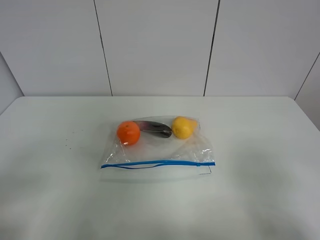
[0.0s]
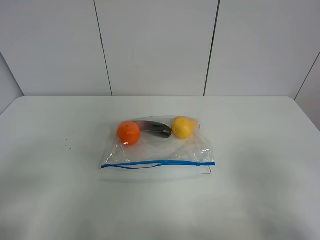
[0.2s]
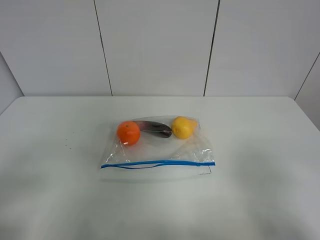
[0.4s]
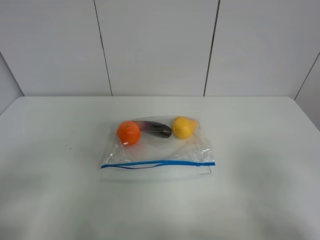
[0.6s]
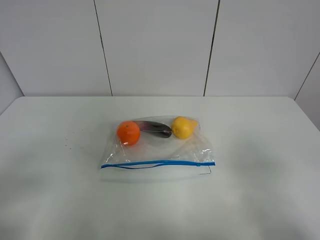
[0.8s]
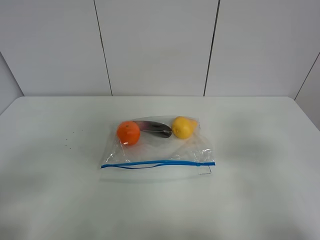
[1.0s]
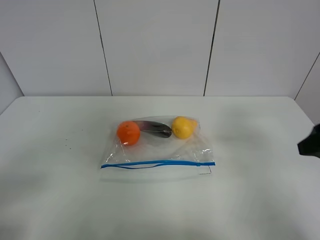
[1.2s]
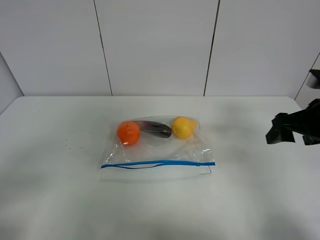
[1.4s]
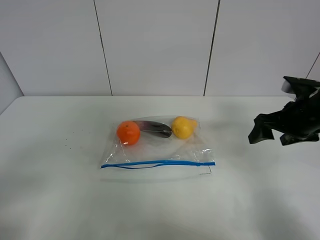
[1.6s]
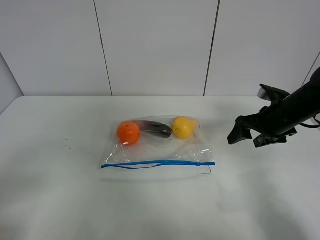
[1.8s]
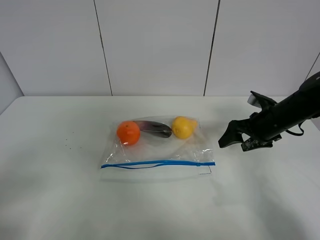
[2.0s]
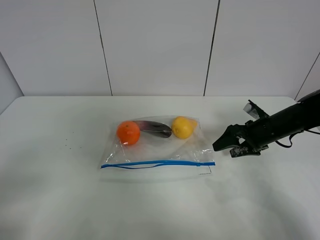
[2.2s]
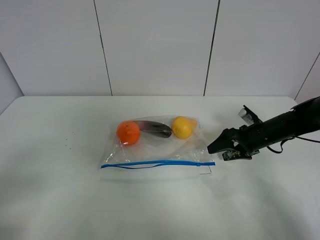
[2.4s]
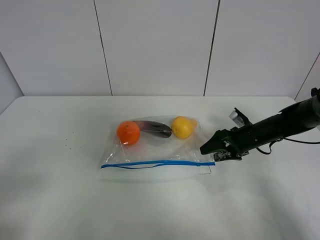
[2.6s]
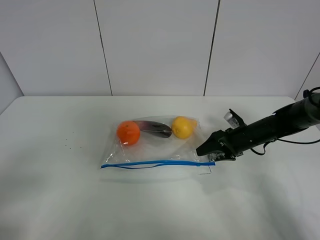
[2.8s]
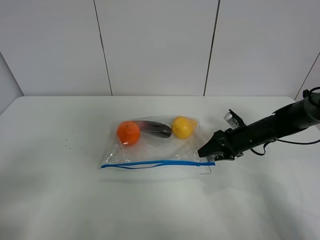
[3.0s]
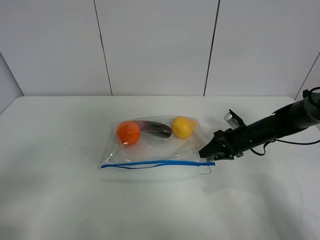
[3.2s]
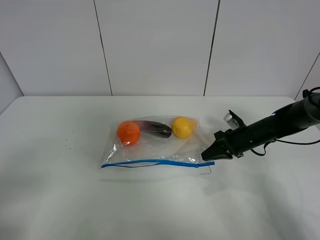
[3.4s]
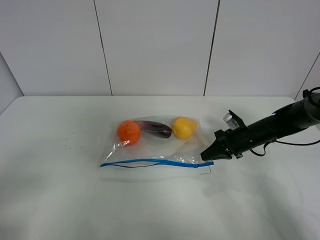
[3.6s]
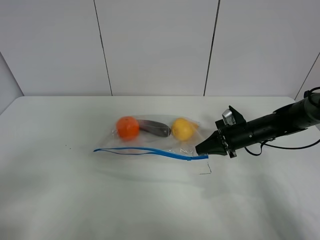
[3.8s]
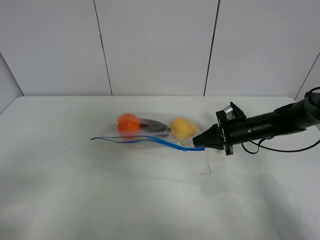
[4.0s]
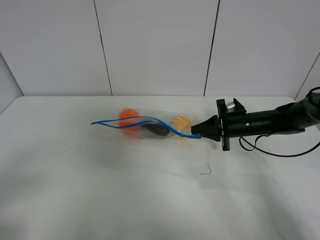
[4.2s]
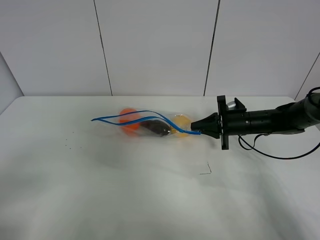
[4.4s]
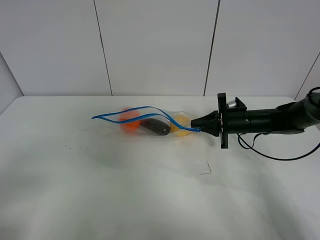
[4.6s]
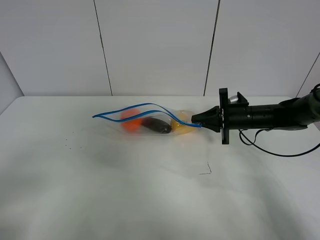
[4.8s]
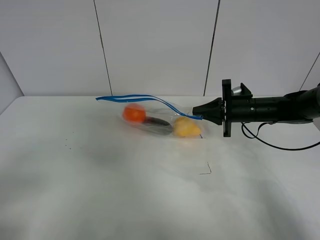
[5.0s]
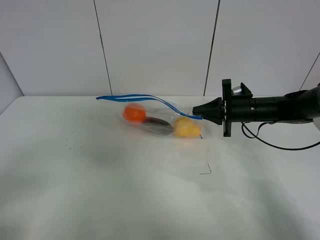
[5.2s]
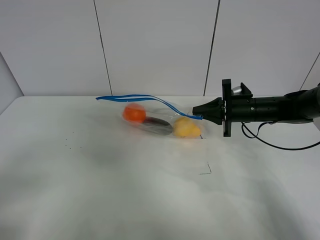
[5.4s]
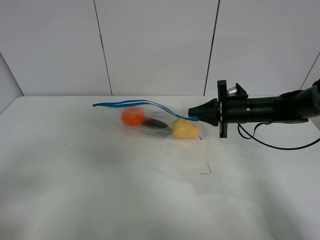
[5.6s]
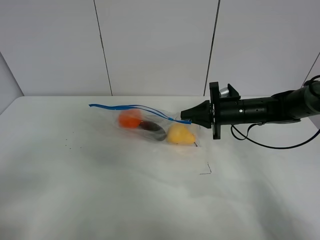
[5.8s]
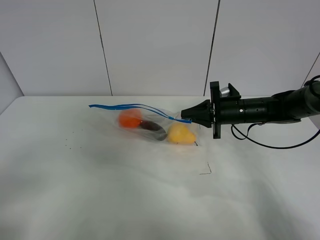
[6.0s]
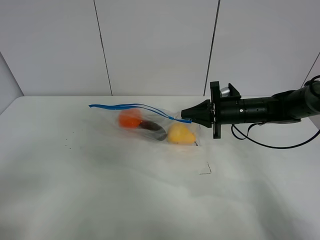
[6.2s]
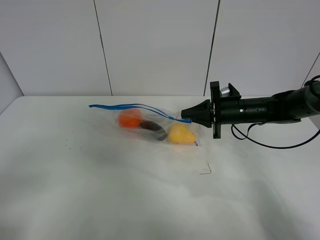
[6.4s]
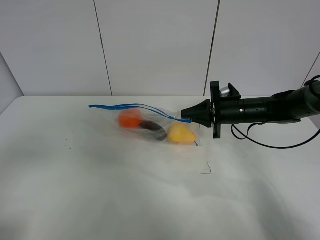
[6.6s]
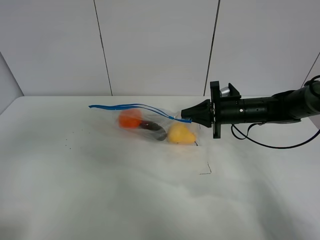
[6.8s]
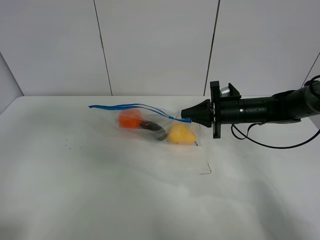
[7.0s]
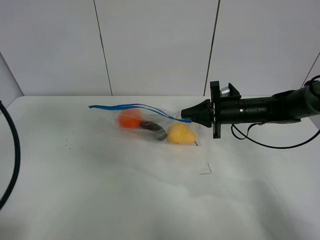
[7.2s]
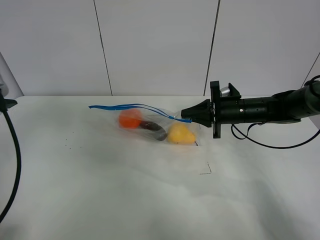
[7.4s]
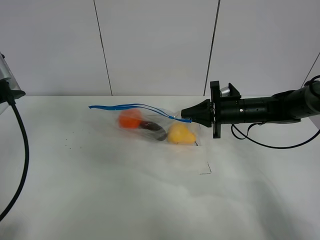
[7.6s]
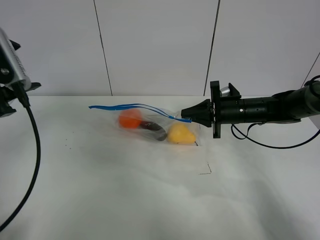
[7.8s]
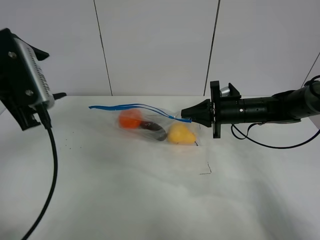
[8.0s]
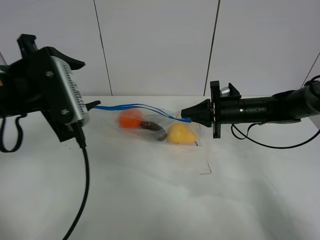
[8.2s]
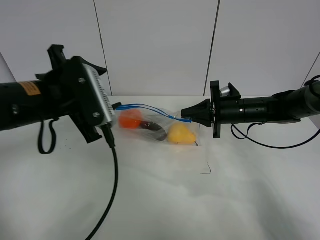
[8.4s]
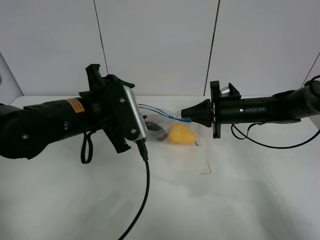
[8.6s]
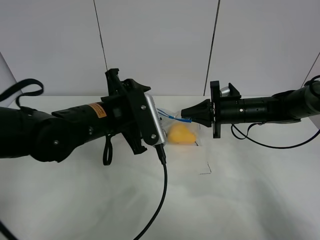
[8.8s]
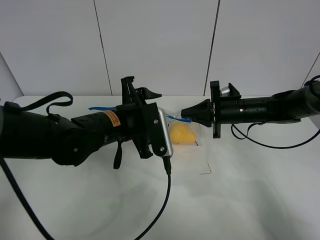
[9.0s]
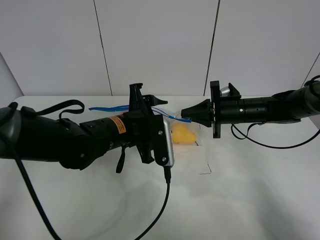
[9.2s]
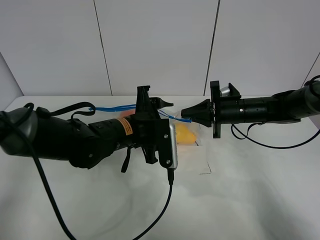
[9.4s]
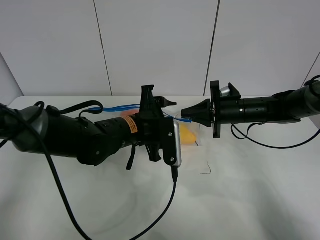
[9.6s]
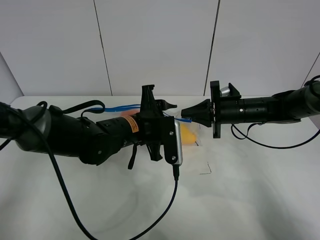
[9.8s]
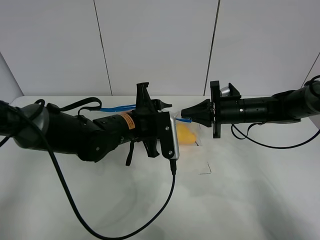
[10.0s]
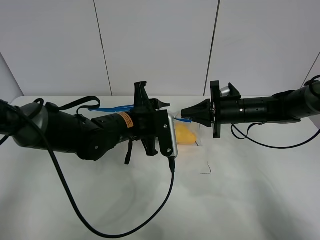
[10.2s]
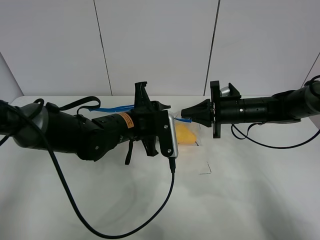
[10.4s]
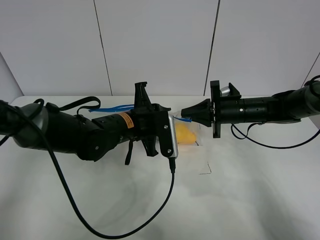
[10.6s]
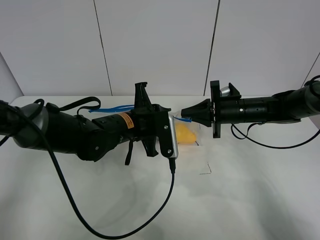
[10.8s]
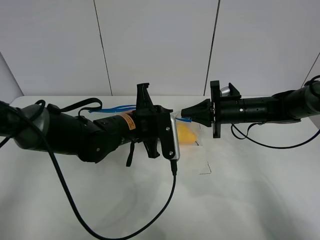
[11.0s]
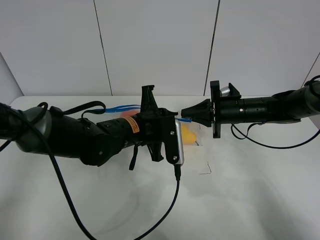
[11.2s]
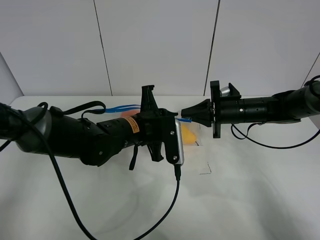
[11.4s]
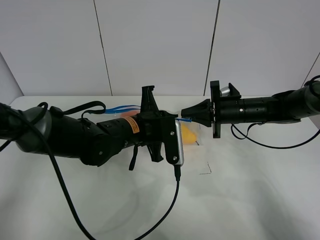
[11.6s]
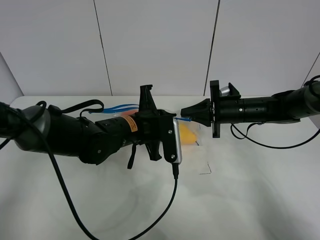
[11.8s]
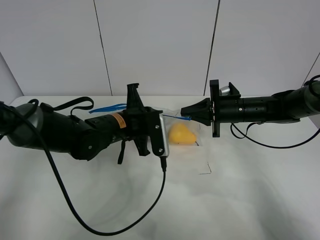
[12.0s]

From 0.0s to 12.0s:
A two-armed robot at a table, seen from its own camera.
Step, from 0.0s to 3.4s: Grasp the fruit bag with right gripper.
Step, from 3.6s to 5.2s: Lift the fruit bag with your right gripper.
From 0.0s to 1.6s: The right gripper is displaced forward by about 30 cm.
From 1.6s to 3.0s: The right gripper is displaced downward and forward by approximately 15 cm.
From 3.0s to 4.4s: The right gripper closes up.
From 4.4s to 6.0s: The right gripper shifts by about 5 cm.
From 6.0s to 7.6s: The left gripper travels forward by roughly 20 cm.
From 7.6s to 9.0s: The left gripper heads to the right and downward, covering some 25 cm.
From 9.0s to 10.4s: The left gripper closes up.
From 10.4s to 12.0s: The left gripper closes its fingers.

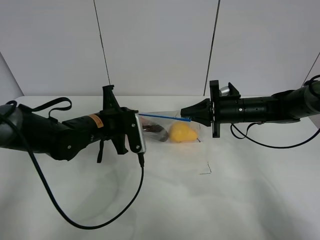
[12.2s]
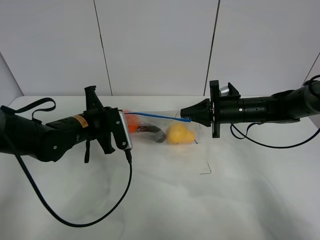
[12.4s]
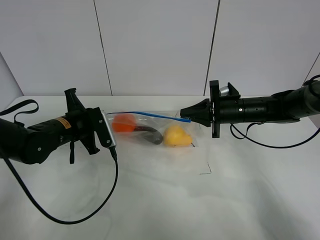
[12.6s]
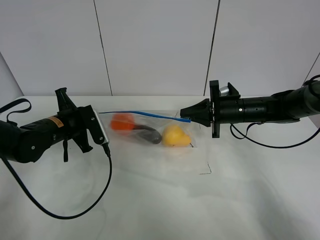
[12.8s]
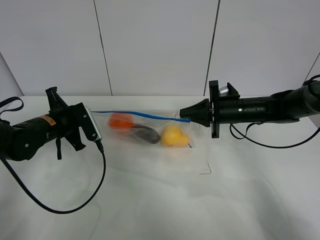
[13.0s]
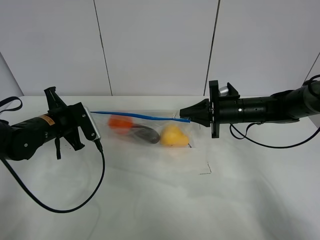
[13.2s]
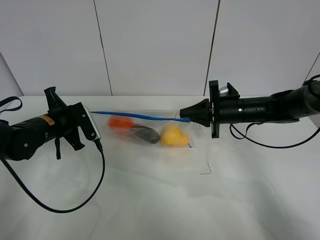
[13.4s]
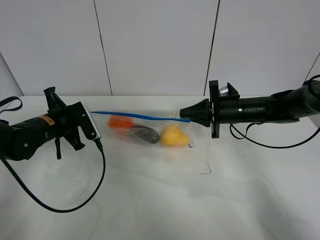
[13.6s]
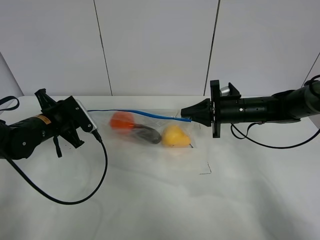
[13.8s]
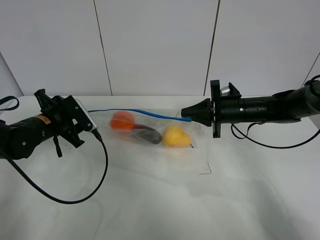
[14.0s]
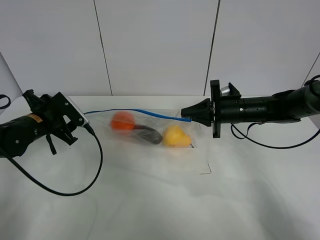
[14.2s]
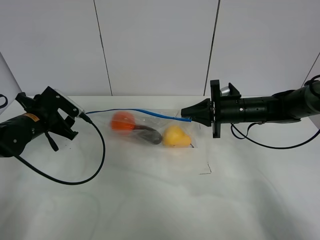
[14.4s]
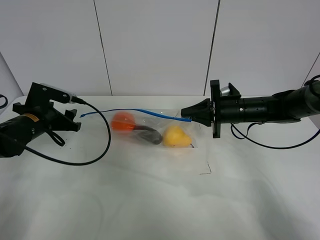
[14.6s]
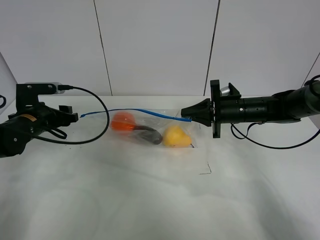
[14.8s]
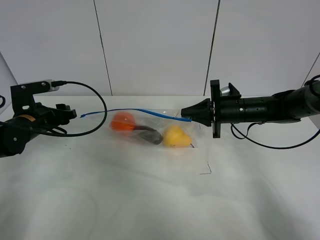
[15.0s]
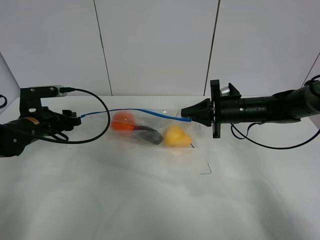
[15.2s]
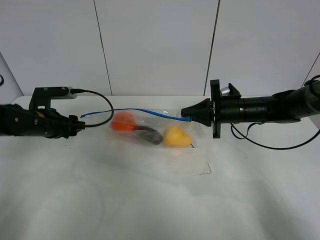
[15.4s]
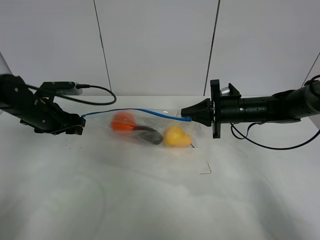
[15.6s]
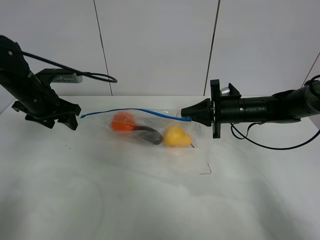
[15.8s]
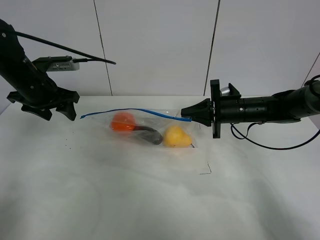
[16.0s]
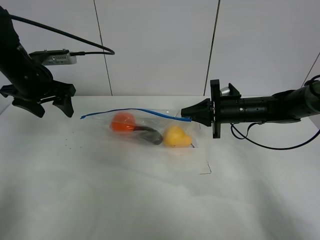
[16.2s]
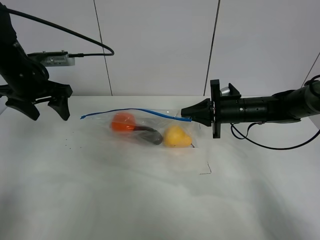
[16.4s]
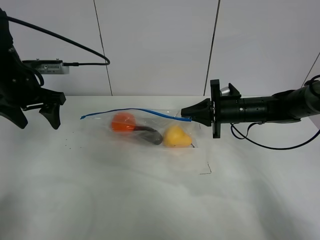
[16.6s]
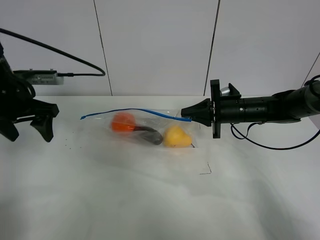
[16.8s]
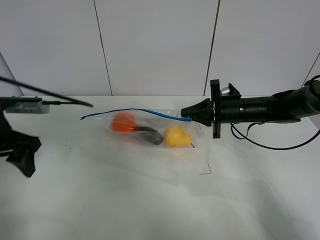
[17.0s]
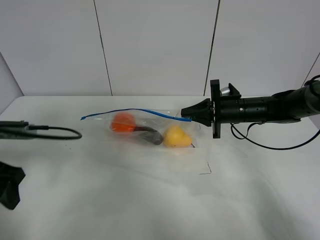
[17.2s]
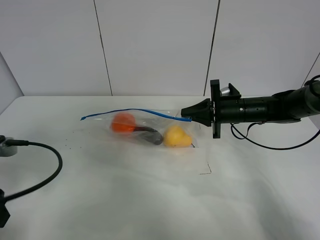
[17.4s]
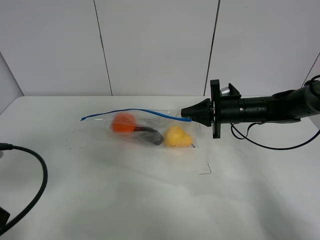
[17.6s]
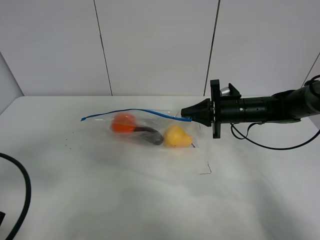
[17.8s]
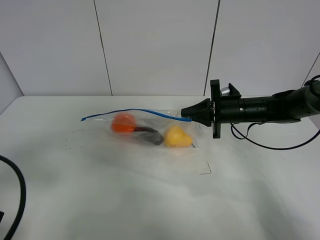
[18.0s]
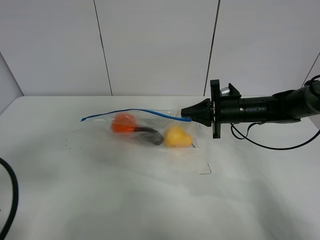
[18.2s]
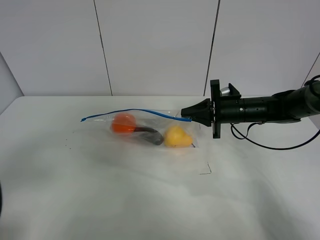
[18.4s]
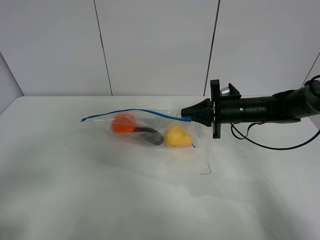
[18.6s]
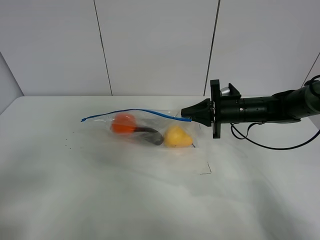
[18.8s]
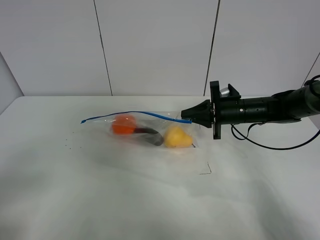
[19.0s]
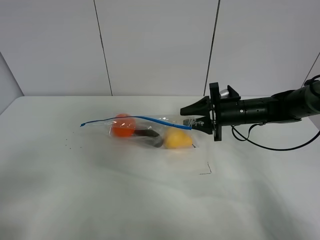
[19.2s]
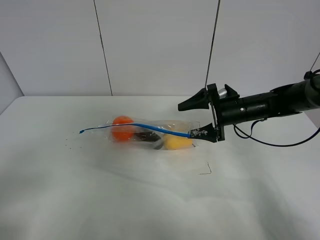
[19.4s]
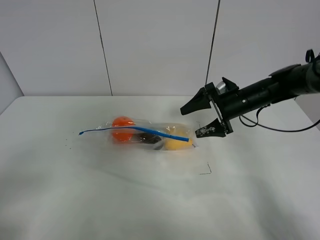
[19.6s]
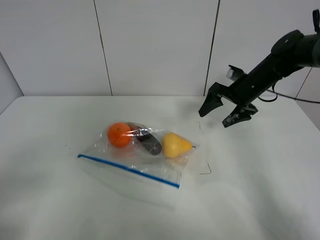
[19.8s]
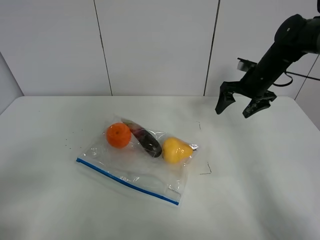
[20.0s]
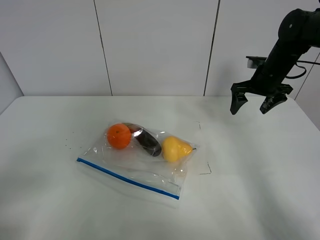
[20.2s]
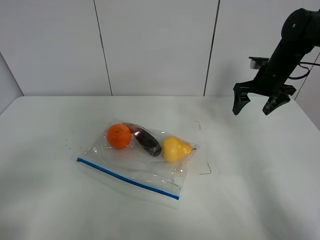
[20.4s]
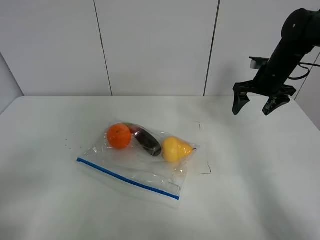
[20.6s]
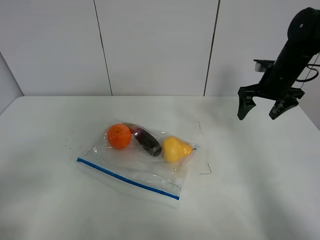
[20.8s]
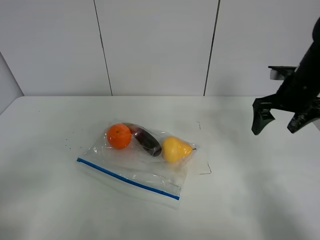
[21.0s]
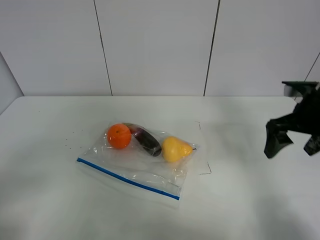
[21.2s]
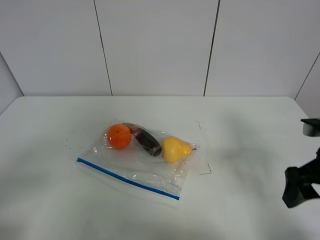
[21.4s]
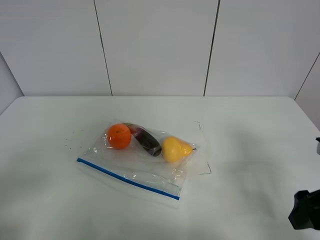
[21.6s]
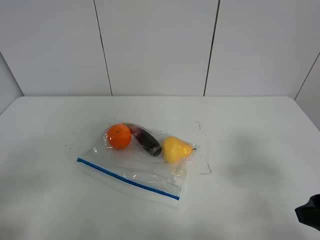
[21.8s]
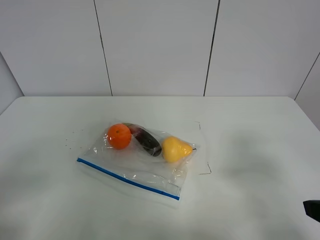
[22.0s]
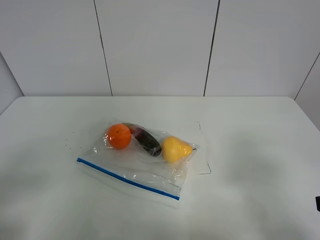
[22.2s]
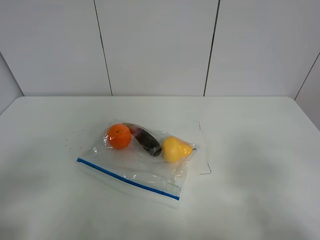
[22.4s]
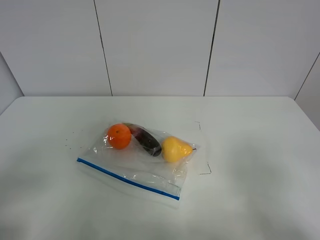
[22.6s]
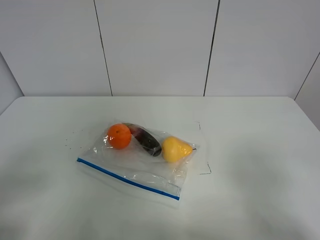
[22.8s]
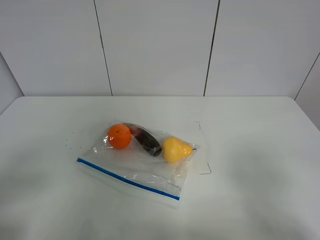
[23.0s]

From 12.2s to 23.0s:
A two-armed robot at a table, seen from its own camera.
Step, from 12.2s to 14.2s: Pull the fruit bag with left gripper.
From 12.2s to 13.8s: The left gripper goes some 10 cm to the left, and opens its fingers.
From 15.2s to 16.8s: The left gripper moves upward, approximately 10 cm.
From 16.8s to 18.4s: The left gripper moves backward, some 25 cm.
From 18.4s to 20.0s: The right gripper travels upward, forward and to the right by roughly 10 cm, and opens up, while the left gripper shifts approximately 5 cm backward.
From 20.0s to 21.4s: The right gripper goes approximately 25 cm backward.
From 21.4s to 23.0s: The right gripper heads backward, covering some 15 cm.
